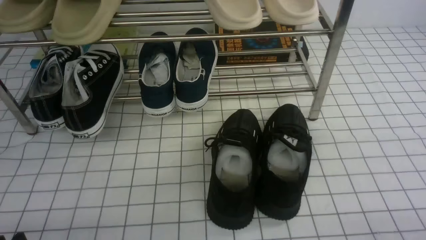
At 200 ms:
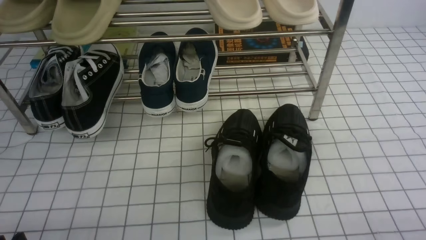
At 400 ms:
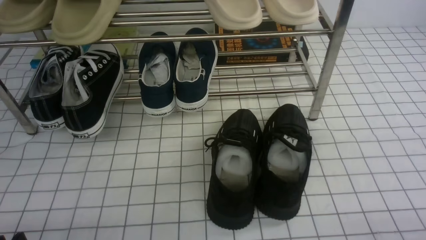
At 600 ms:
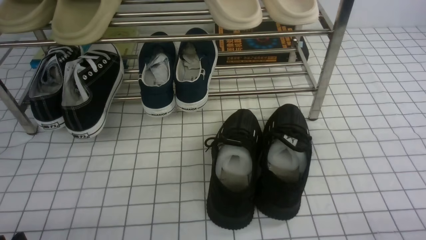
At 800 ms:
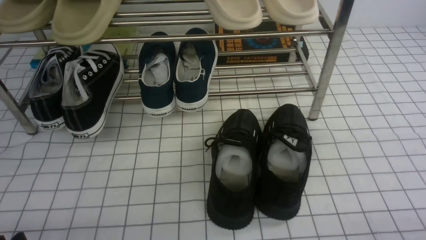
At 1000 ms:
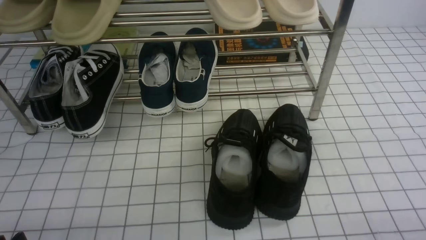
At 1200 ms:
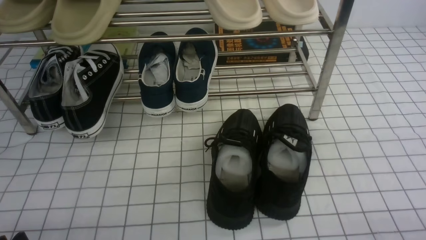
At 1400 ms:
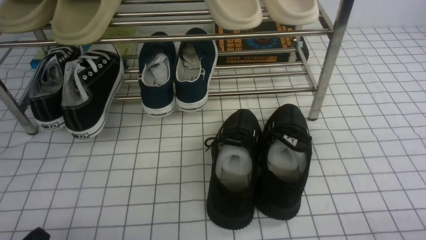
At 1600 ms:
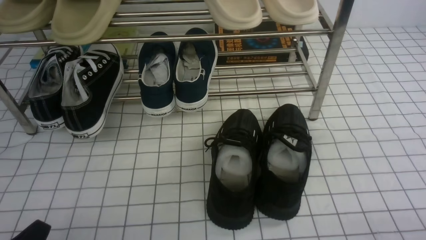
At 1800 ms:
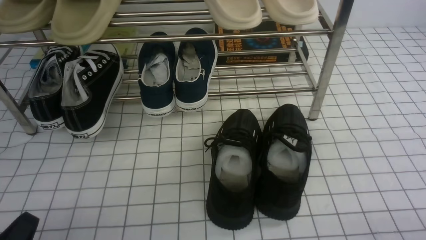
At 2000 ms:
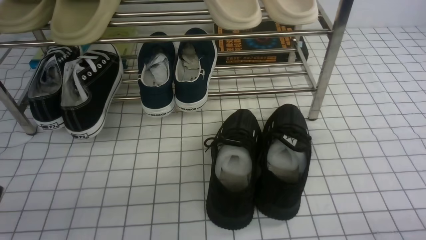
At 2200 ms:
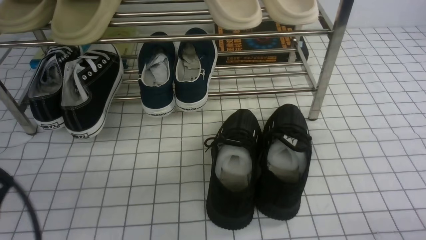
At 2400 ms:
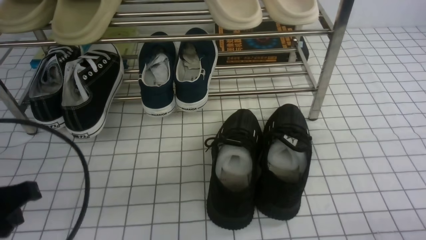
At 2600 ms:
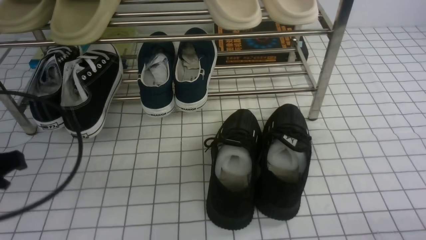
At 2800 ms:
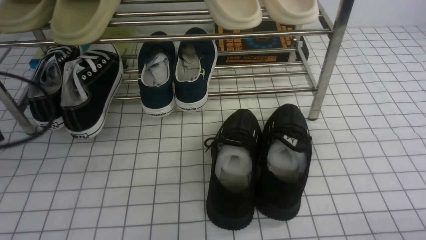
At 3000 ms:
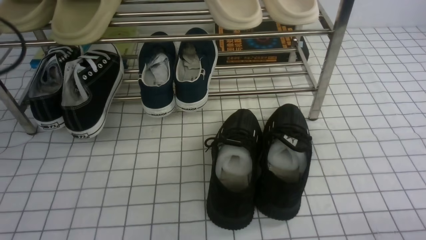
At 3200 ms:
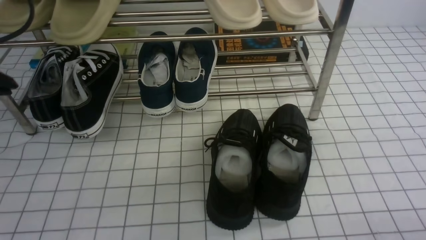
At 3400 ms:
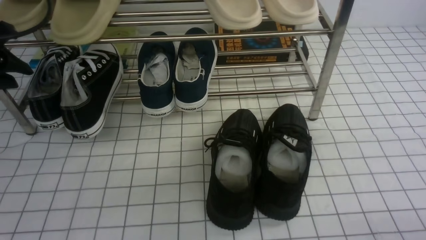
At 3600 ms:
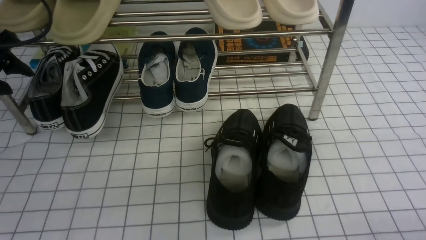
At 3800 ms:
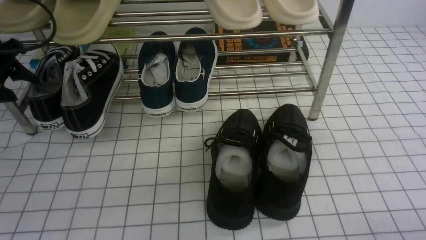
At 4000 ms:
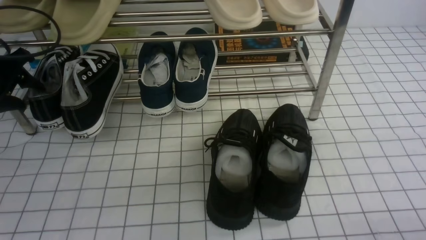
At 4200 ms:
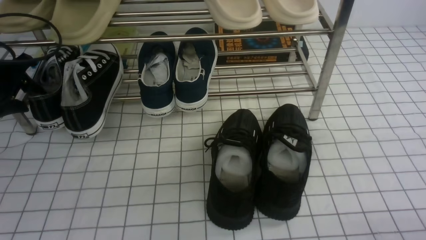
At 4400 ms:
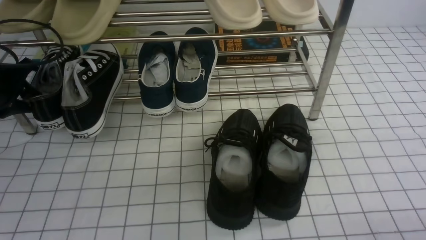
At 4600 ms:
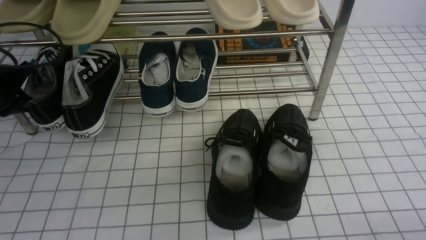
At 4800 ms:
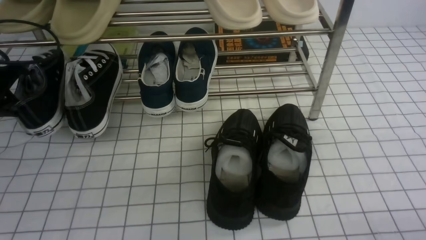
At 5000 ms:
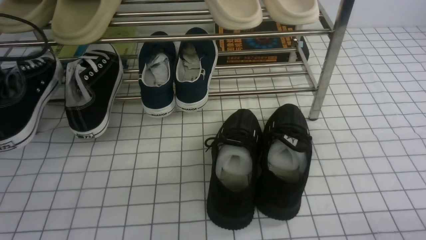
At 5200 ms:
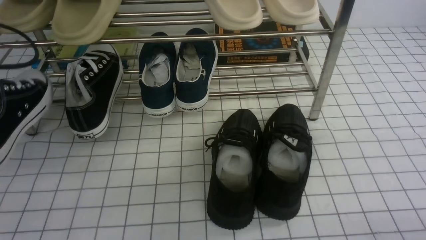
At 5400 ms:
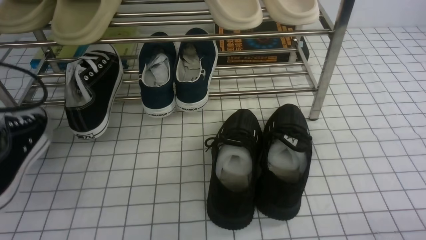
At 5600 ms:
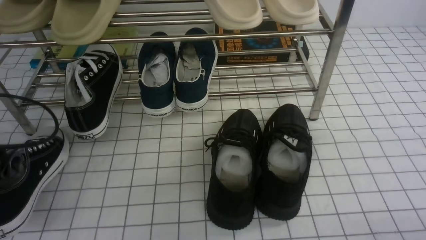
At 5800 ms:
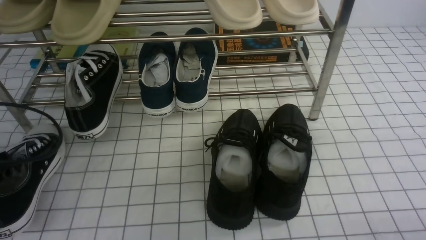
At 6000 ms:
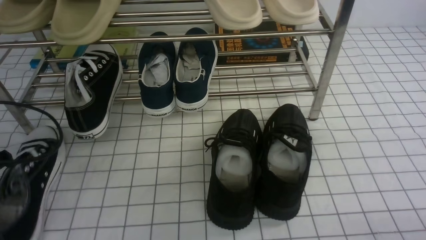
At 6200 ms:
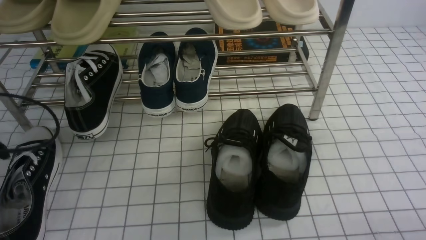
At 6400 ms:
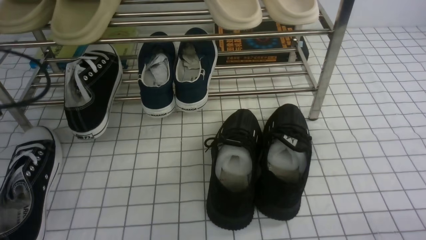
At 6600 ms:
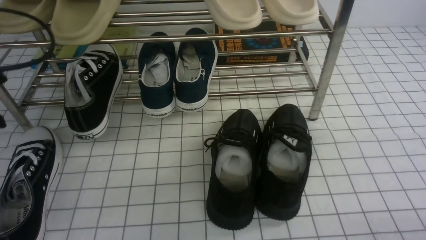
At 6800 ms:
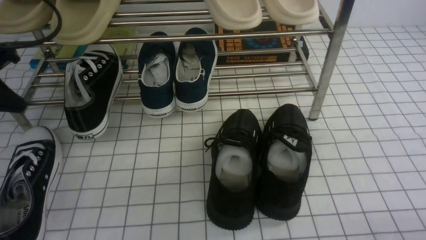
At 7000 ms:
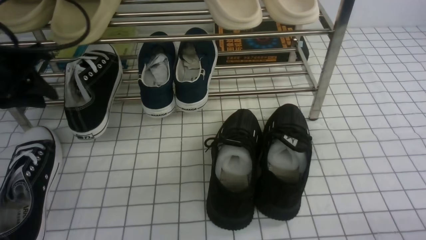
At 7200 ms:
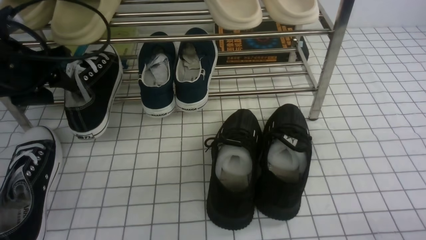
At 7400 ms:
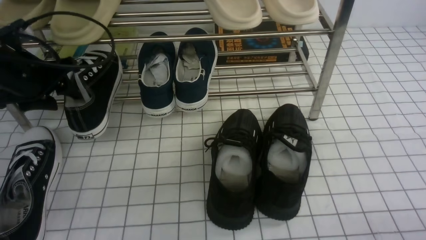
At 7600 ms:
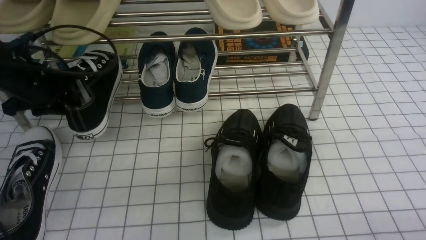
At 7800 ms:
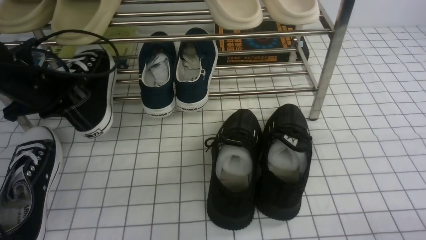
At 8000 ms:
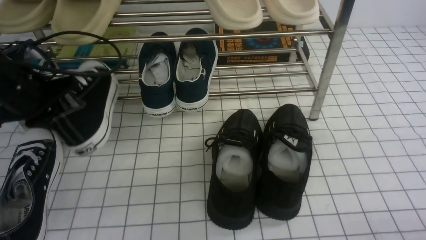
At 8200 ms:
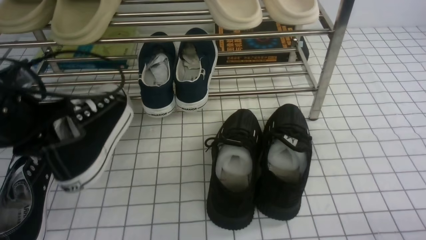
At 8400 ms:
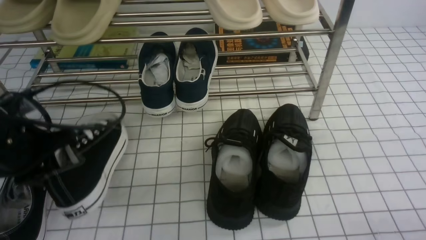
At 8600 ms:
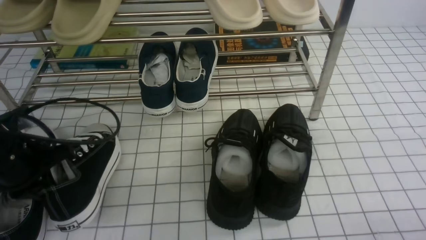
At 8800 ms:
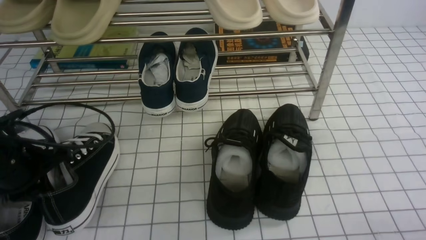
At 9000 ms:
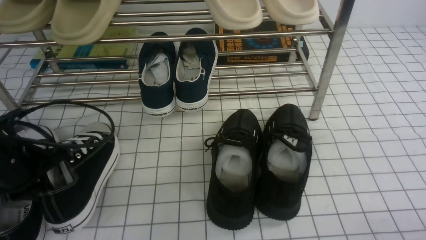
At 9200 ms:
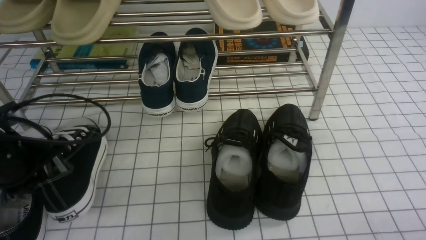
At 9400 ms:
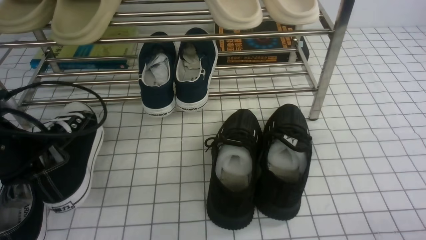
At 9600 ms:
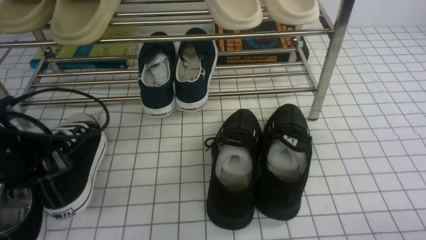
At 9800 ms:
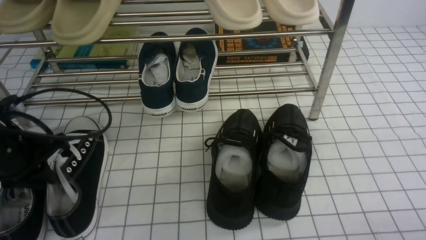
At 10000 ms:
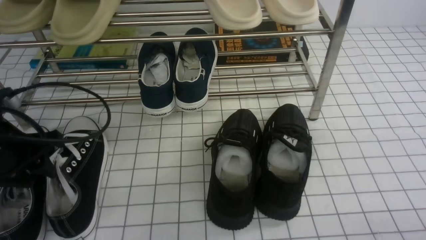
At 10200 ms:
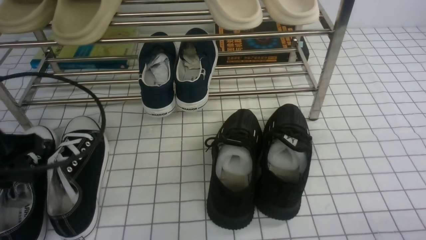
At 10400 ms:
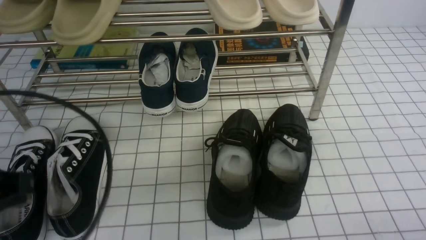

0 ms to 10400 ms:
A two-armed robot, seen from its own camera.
Step, 0 ms to 4400 ms: use the left arm to clamp a shoe on the left side of the shoe rack.
Step, 4600 ms to 6200 ms: Use your left arm to remove the clamped shoe from the shoe rack and put it down.
Step, 6400 ms to 7600 ms: use the left arm to clamp a shoe on the left side of the shoe rack.
Step, 8000 ms to 10000 ms: Use your left arm to remove the clamped shoe from the shoe rack and put it down.
1400 ms to 3000 ms: The left gripper travels forward, upward and to the left by approximately 25 cm, and closes.
3000 ms to 4400 ms: The left gripper moves forward and downward, some 15 cm, and opens up.
4400 ms to 6000 ms: The left gripper heads backward, covering about 15 cm, and closes, then opens again.
6000 ms to 7400 ms: The left gripper heads forward, covering approximately 15 cm, and opens its fingers.
7400 ms to 9000 ms: The left gripper moves backward, roughly 10 cm, and closes its fingers.
9000 ms to 10400 ms: The left gripper heads backward and upward, covering approximately 15 cm, and opens, then closes again.

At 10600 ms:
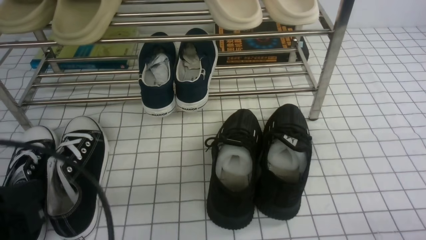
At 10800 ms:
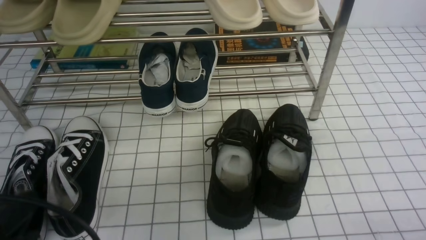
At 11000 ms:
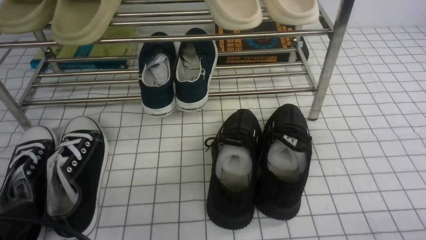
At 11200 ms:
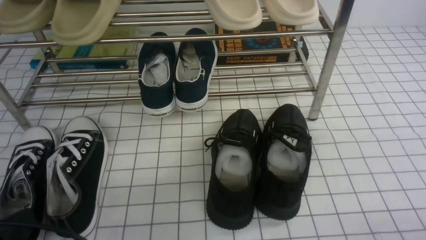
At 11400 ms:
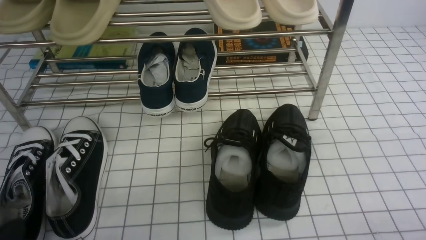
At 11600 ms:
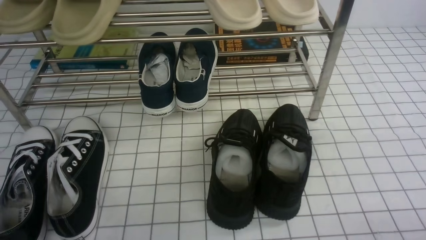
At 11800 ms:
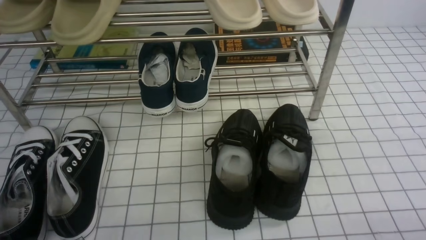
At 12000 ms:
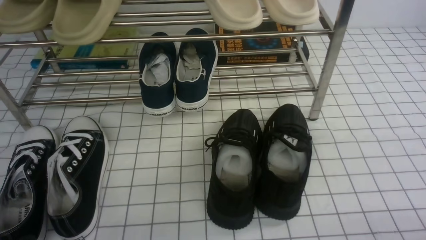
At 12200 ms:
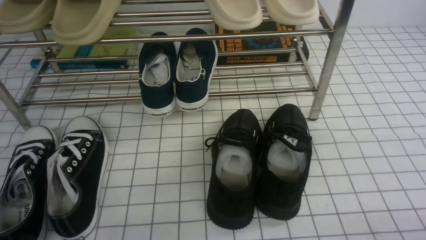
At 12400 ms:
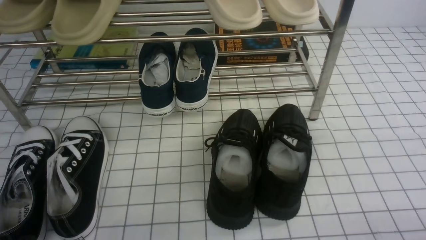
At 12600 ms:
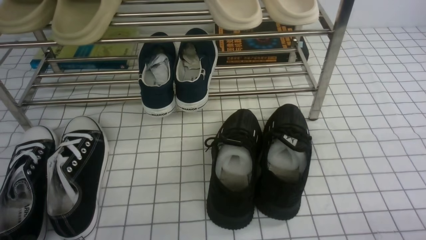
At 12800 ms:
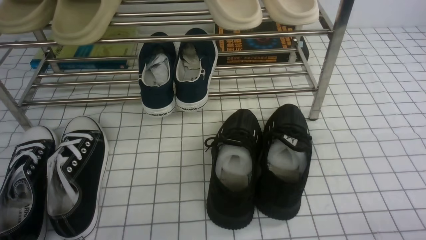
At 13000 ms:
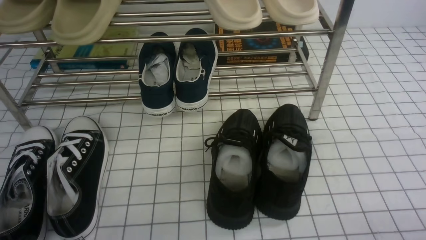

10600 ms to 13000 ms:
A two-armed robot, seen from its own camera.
10600 ms to 11800 ms: The left gripper goes roughly 10 cm downward.
11800 ms to 13000 ms: Neither gripper changes place.
